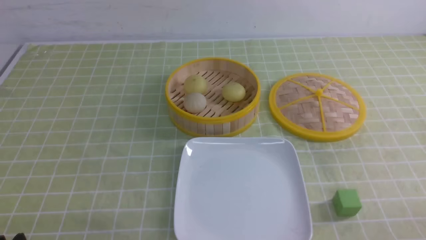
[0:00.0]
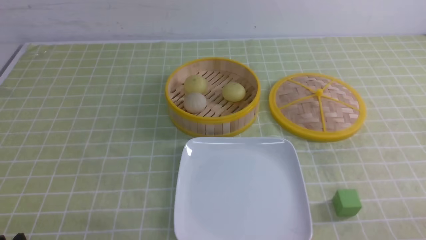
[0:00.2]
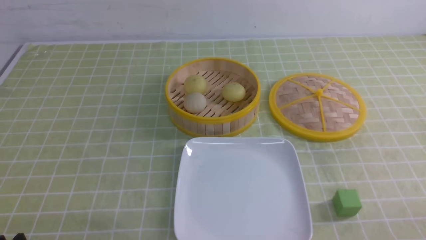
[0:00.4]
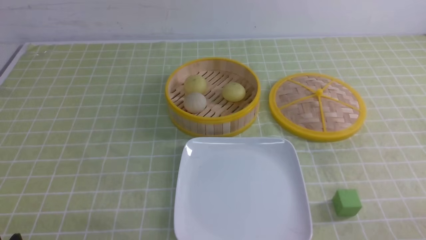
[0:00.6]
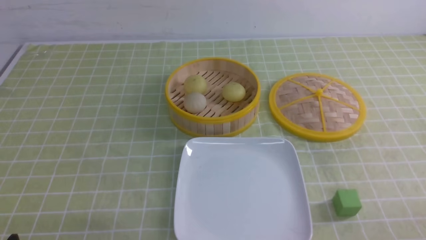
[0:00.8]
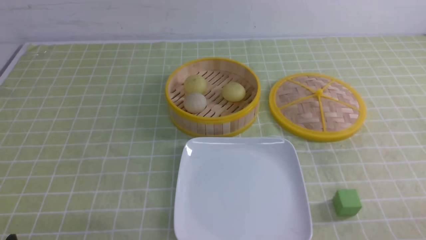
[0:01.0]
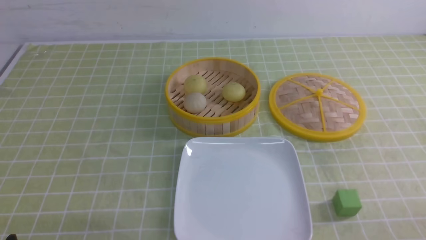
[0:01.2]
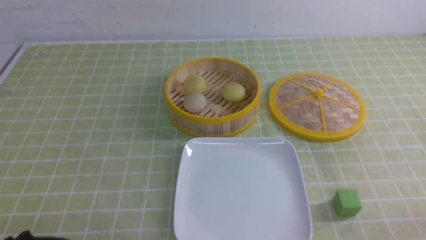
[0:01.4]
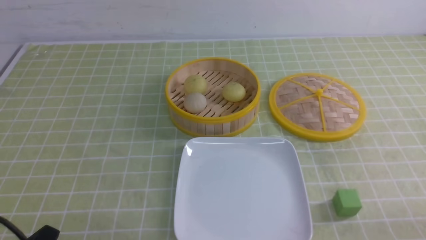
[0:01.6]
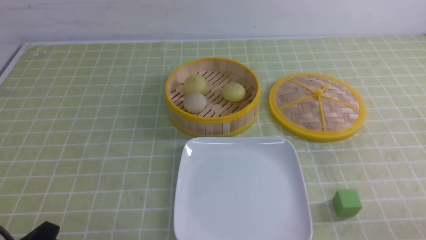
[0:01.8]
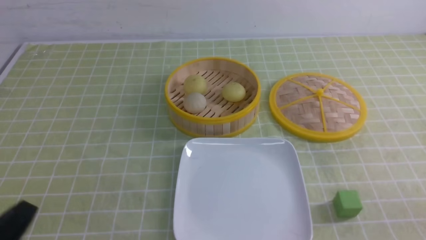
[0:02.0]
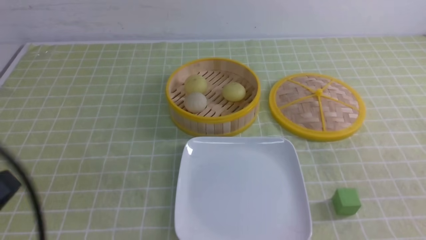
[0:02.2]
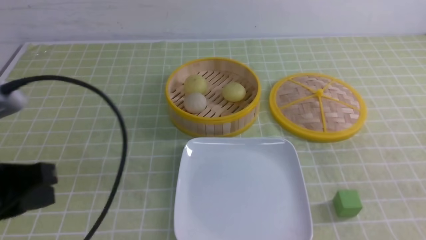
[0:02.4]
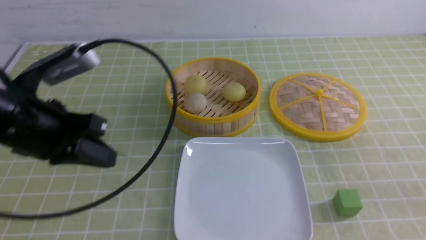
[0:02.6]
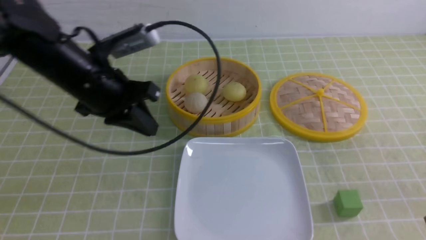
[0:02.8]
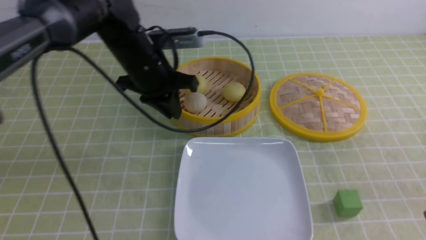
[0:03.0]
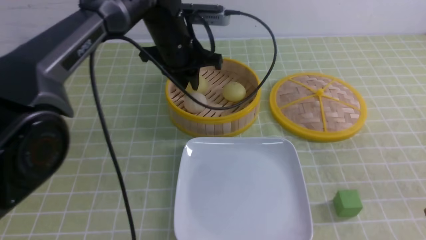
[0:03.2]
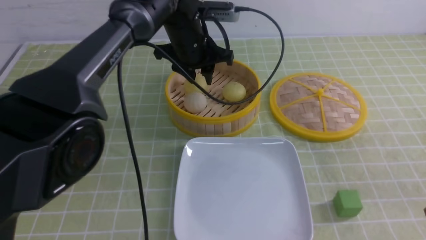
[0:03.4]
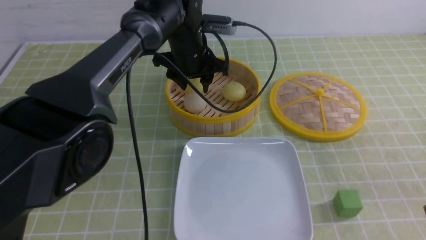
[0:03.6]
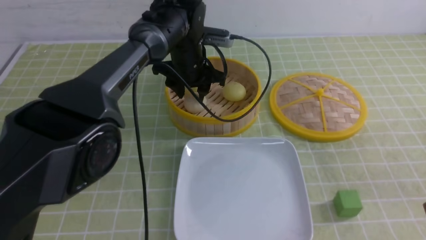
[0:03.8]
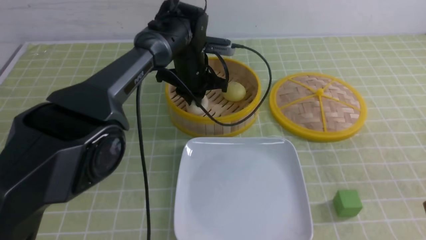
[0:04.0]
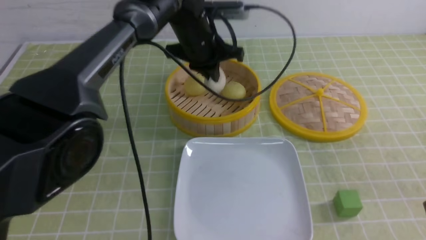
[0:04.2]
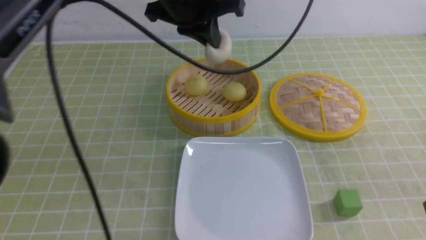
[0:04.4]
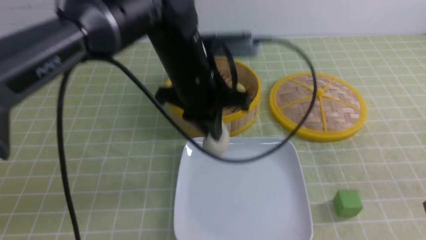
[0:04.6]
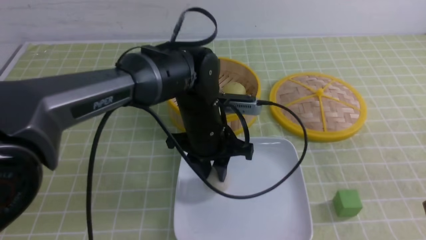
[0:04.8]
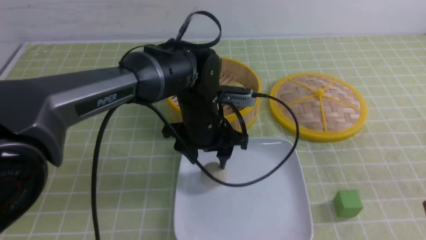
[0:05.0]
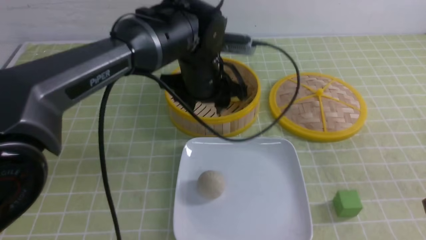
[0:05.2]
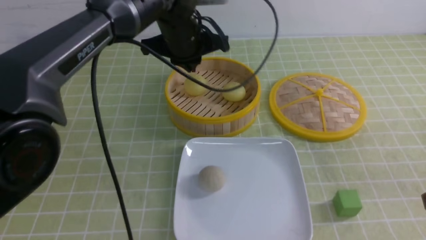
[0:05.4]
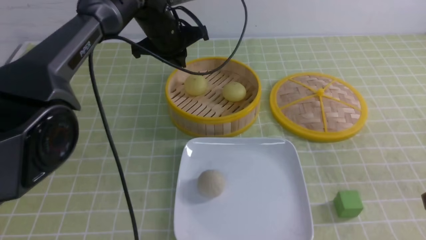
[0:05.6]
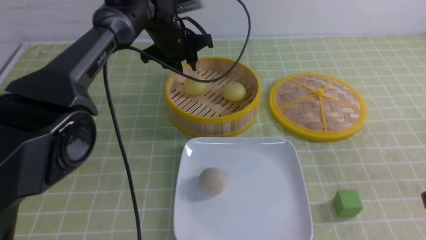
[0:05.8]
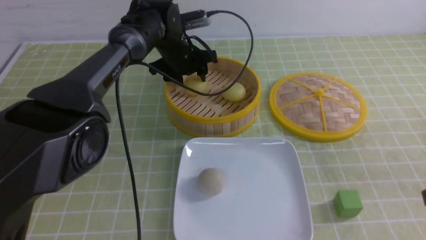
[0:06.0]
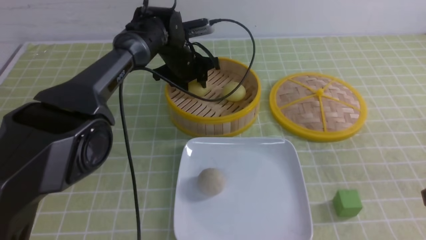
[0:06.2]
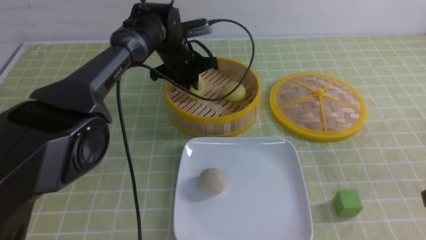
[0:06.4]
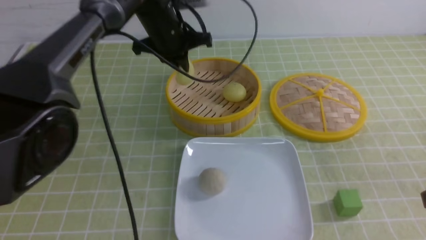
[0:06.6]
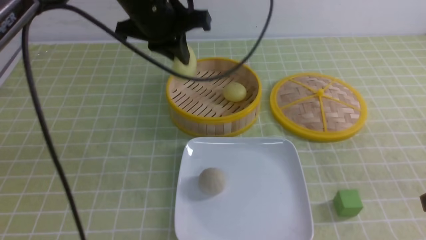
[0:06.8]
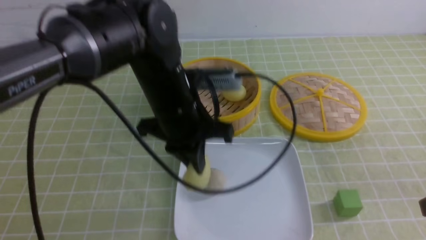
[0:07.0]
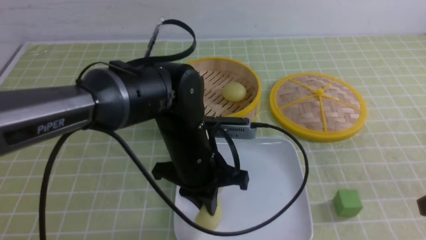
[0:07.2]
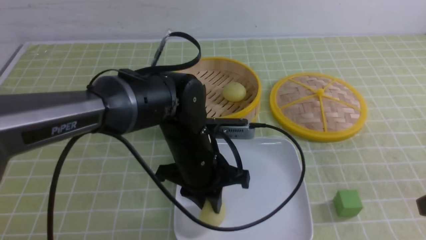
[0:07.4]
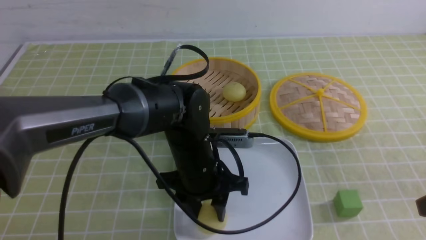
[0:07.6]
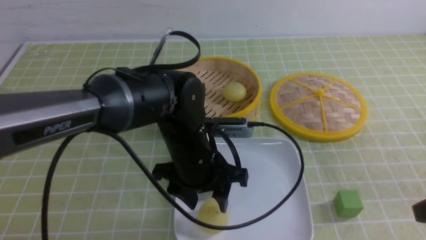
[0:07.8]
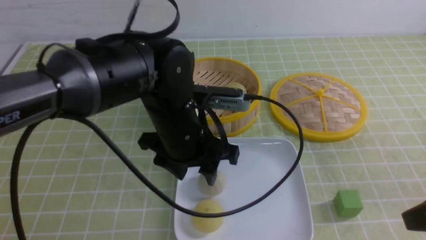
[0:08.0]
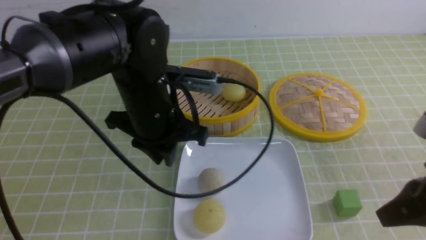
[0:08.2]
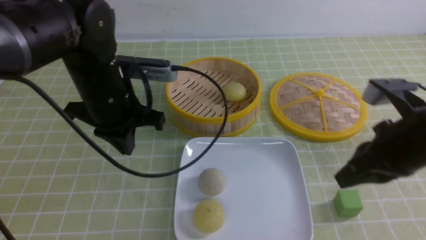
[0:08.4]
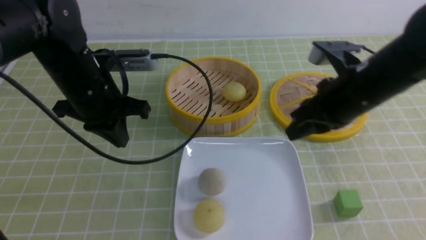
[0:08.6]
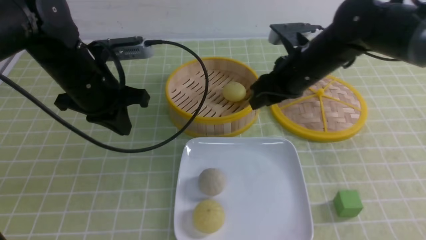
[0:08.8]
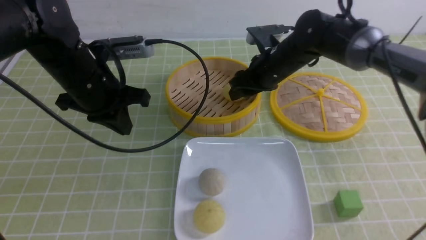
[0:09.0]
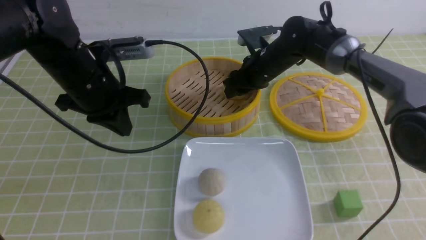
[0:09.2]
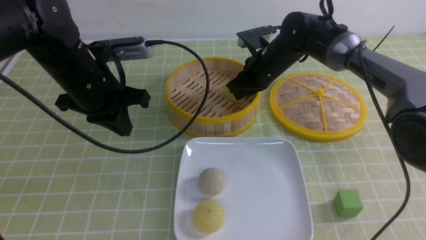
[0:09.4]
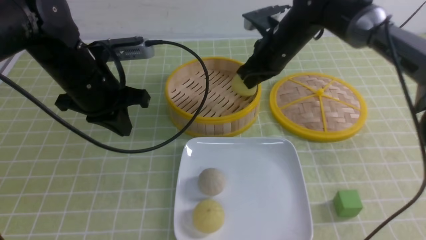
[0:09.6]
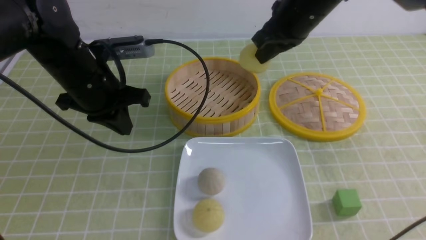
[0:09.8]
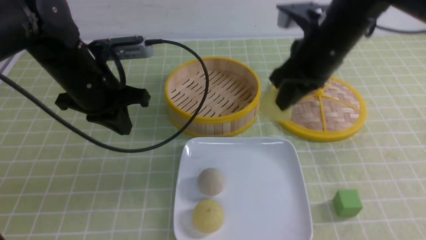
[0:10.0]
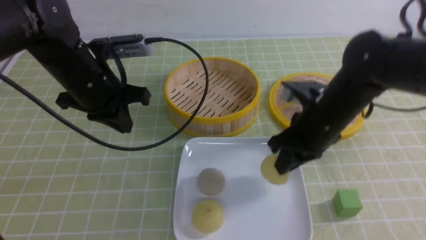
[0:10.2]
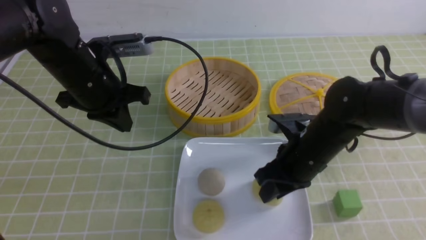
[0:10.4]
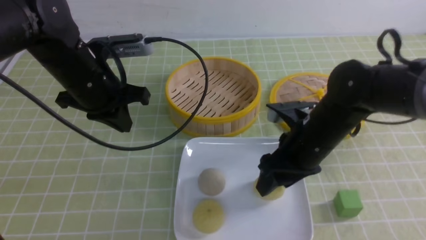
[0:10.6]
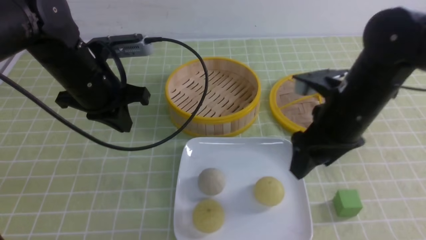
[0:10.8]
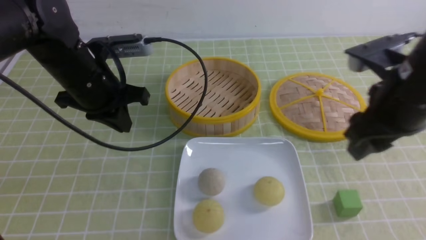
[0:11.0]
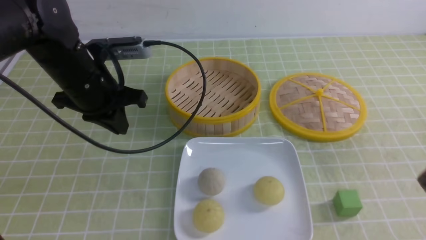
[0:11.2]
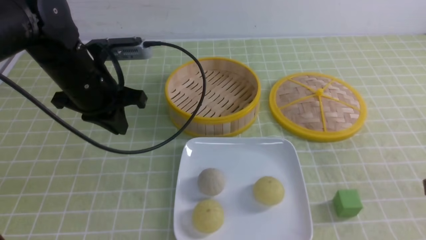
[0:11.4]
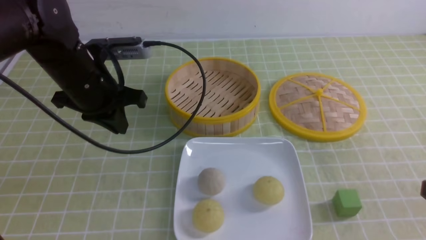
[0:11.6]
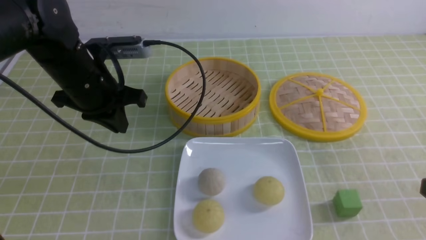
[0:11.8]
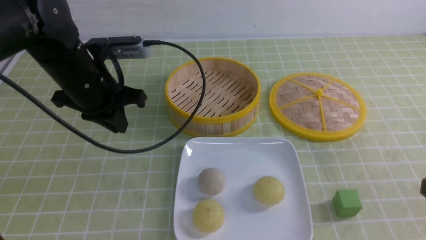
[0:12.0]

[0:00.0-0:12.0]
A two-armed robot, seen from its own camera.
Step, 0:00.0 to 0:04.0: use the left arm to grab the steamed stuffed bun that is closest to it.
Step, 0:04.2 to 0:04.8: use the left arm to put the steamed stuffed bun into the plate.
Step, 0:05.0 to 0:06.4: use the left arm to grab the steamed stuffed bun that is closest to it.
Step, 0:06.6 to 0:07.8: use the left arm to put the steamed stuffed bun into the plate.
Step, 0:08.0 to 0:09.4: use the right arm to grab the steamed stuffed bun that is closest to it.
Step, 0:09.6 to 0:10.6: use the right arm to put the steamed stuffed bun into the plate.
0:01.6 to 0:03.0: The left gripper moves forward and to the right, about 35 cm. Meanwhile the right gripper travels upward and forward by roughly 15 cm, and closes.
0:03.0 to 0:04.4: The left gripper travels to the right by roughly 5 cm, and opens, then closes again.
0:04.4 to 0:06.0: The left gripper heads forward and downward, covering about 15 cm, and opens up.
0:06.0 to 0:07.6: The left gripper is displaced backward by about 25 cm, and closes, then opens again.
0:07.6 to 0:09.0: The right gripper shifts some 35 cm forward and to the left, and opens up, while the left gripper shifts approximately 20 cm to the left, upward and forward, and closes.
0:09.0 to 0:10.4: The right gripper shifts about 15 cm backward, and closes and opens again.
0:10.4 to 0:12.0: The right gripper shifts about 25 cm backward and to the right, and closes up.

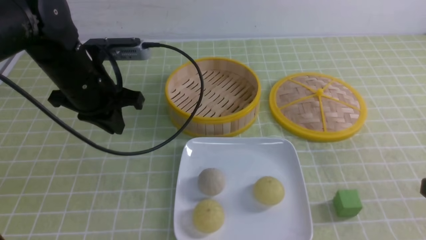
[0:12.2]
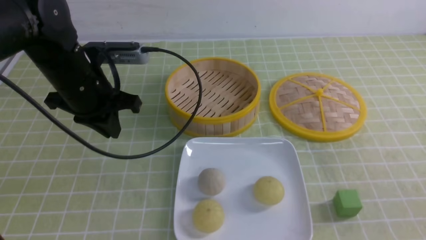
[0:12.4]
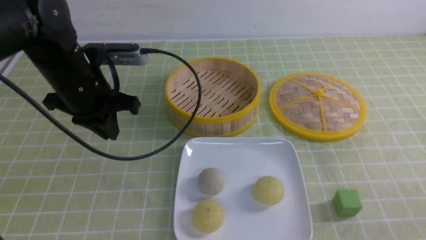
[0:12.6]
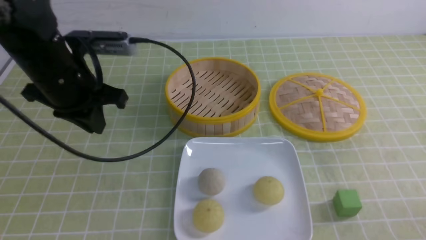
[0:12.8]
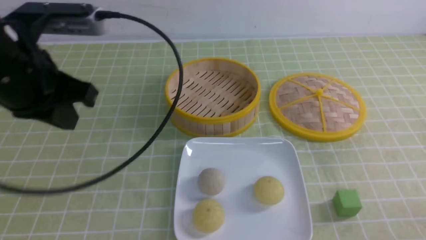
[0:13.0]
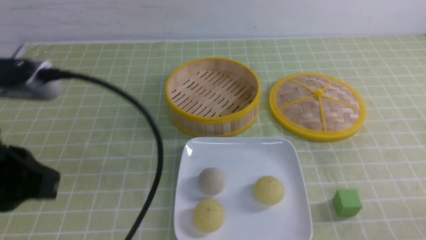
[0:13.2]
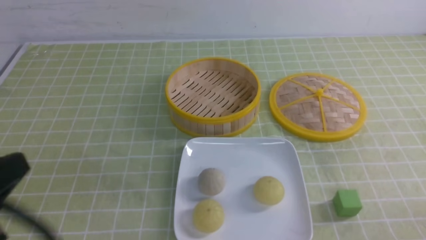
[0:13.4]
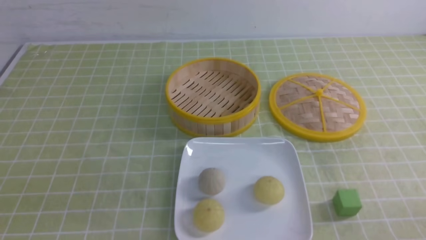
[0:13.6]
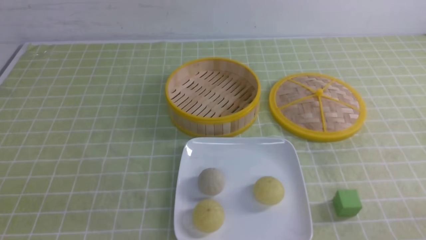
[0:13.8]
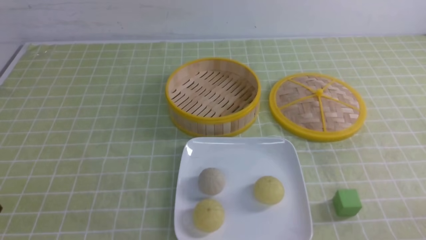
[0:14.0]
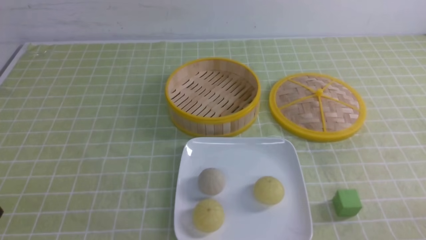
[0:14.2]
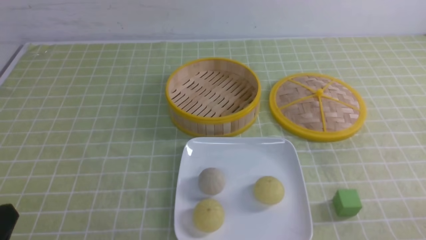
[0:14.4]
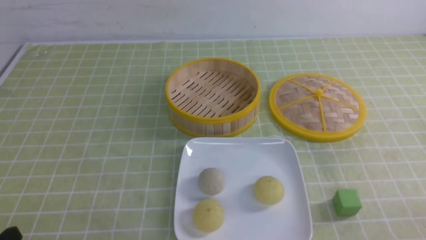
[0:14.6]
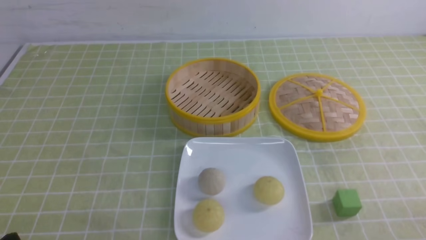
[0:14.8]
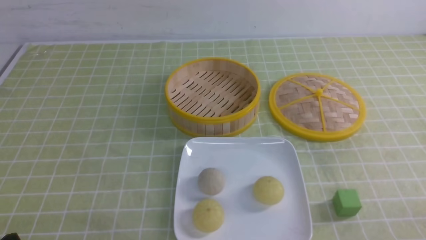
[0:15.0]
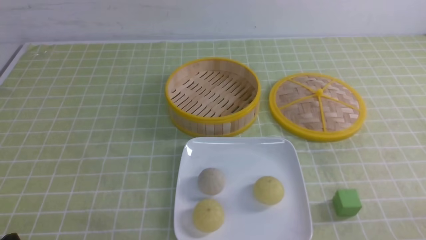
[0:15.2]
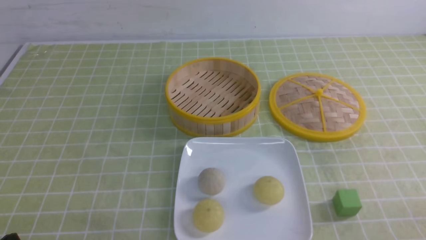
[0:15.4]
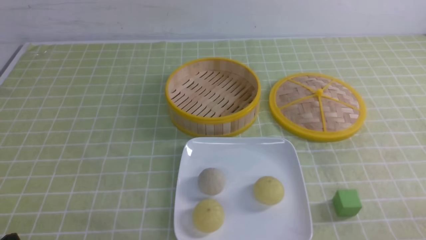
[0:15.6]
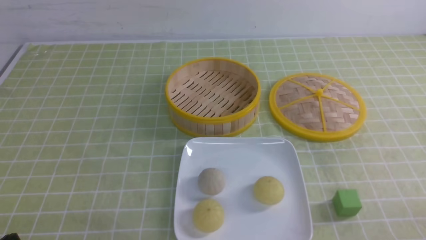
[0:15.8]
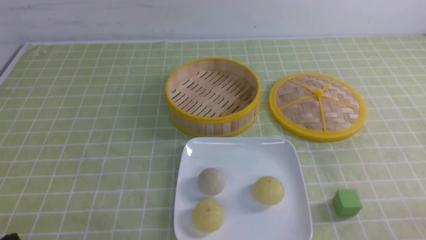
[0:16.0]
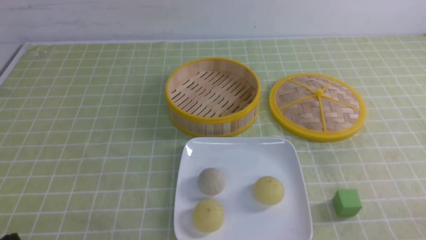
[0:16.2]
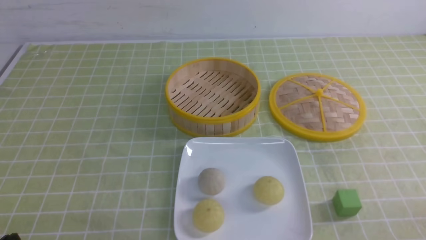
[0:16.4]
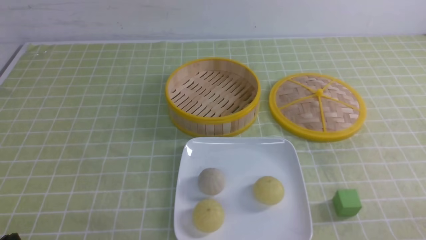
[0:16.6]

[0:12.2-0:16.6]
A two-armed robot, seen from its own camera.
0:12.2 to 0:13.6: The right gripper moves downward, some 10 cm, while the left gripper is displaced backward by roughly 30 cm.
0:15.2 to 0:16.6: Both grippers stay put.
